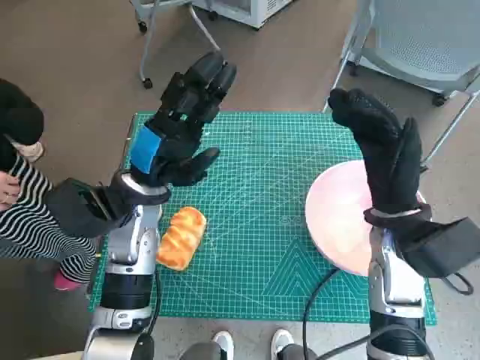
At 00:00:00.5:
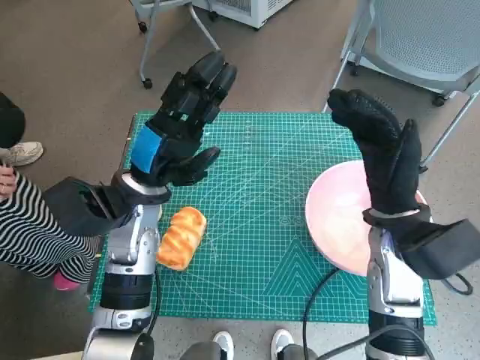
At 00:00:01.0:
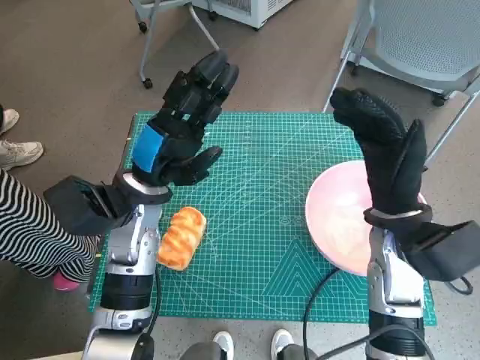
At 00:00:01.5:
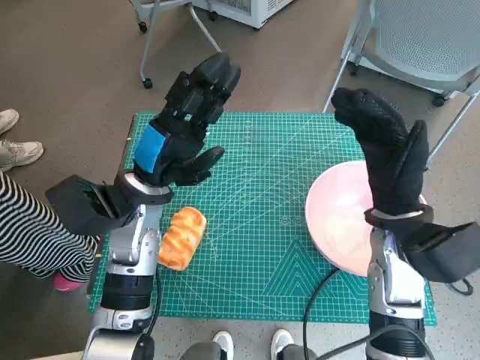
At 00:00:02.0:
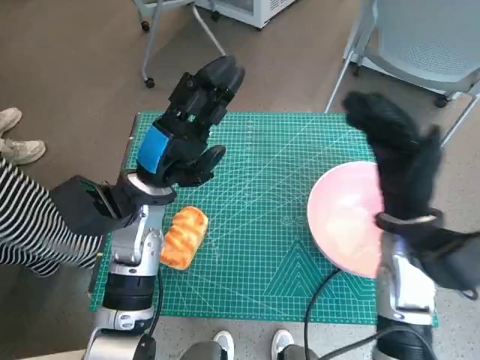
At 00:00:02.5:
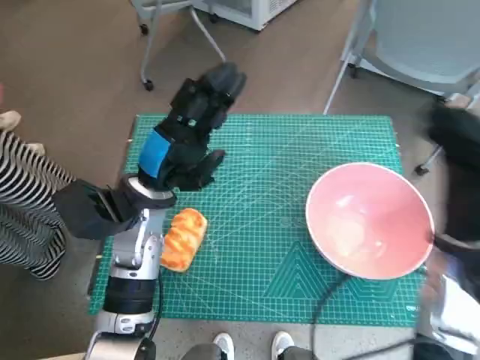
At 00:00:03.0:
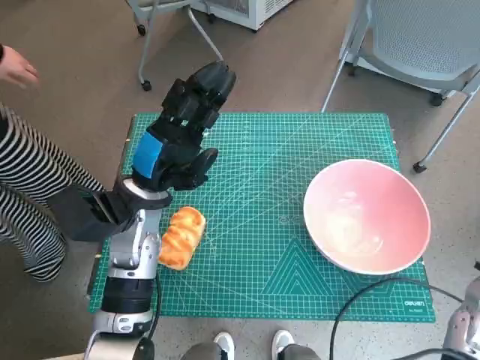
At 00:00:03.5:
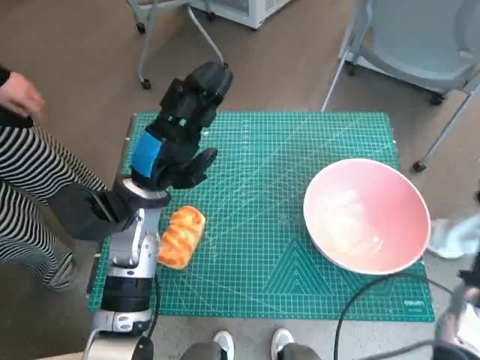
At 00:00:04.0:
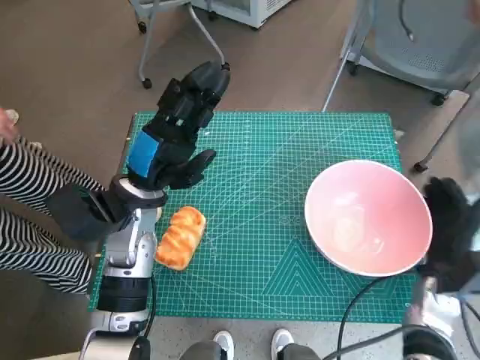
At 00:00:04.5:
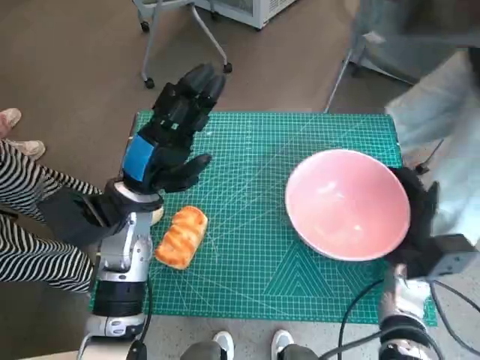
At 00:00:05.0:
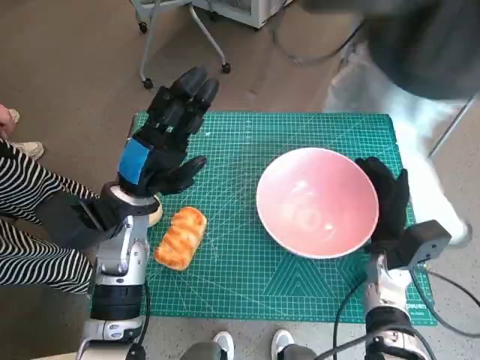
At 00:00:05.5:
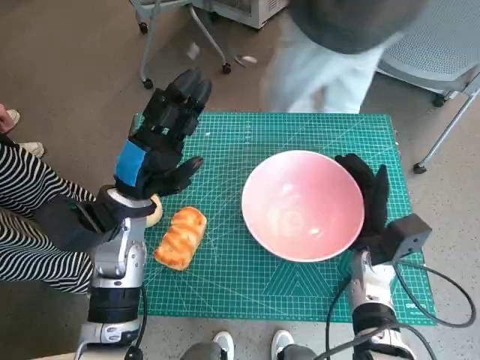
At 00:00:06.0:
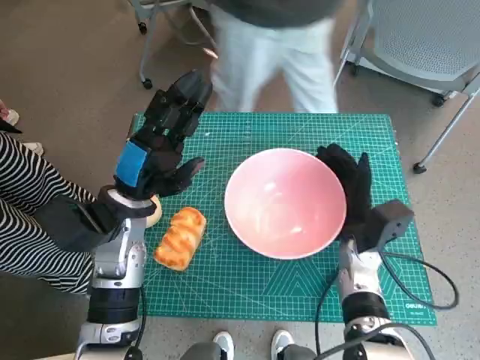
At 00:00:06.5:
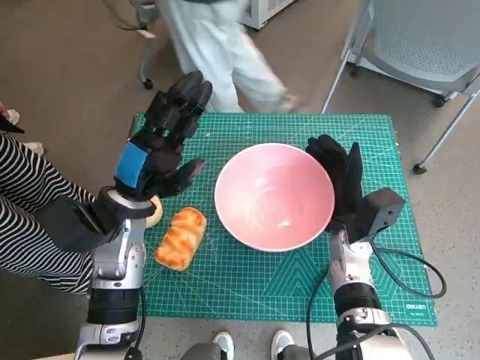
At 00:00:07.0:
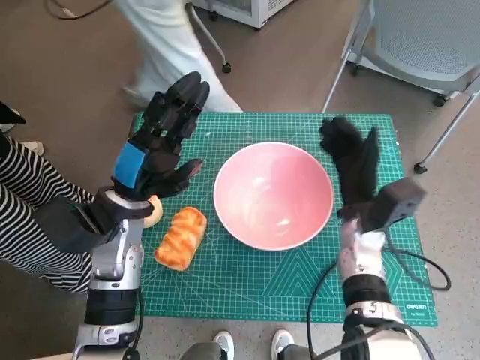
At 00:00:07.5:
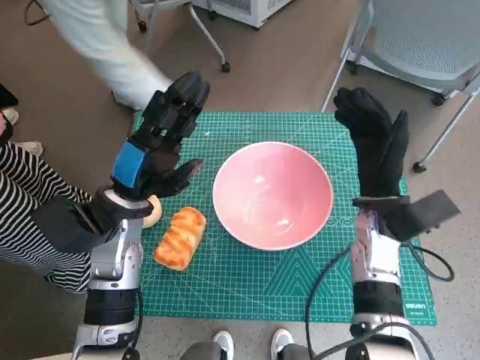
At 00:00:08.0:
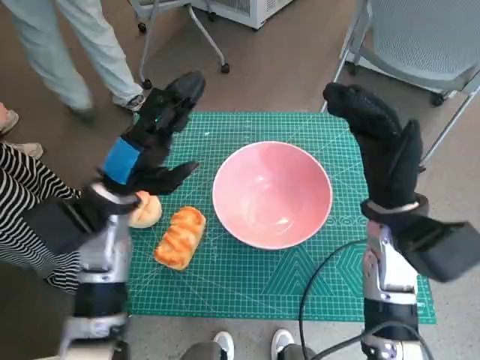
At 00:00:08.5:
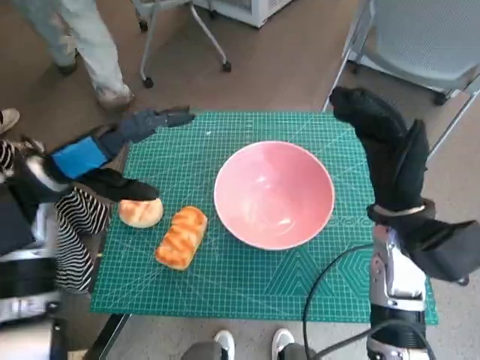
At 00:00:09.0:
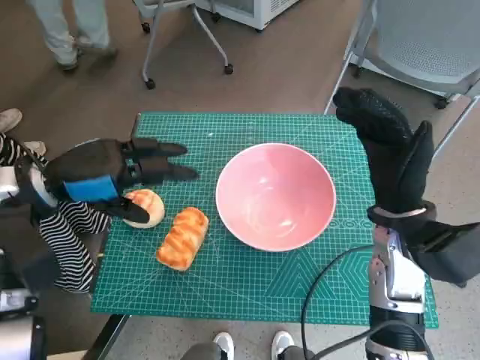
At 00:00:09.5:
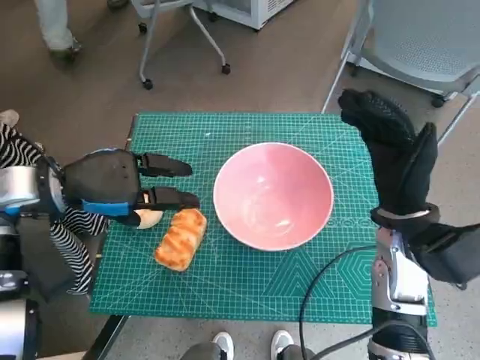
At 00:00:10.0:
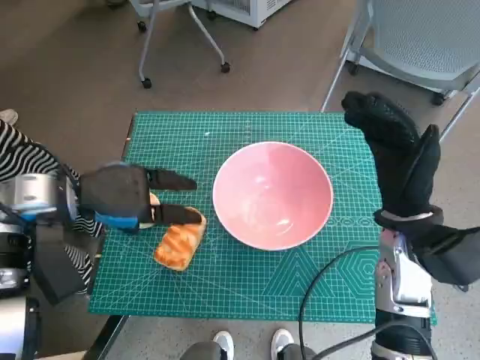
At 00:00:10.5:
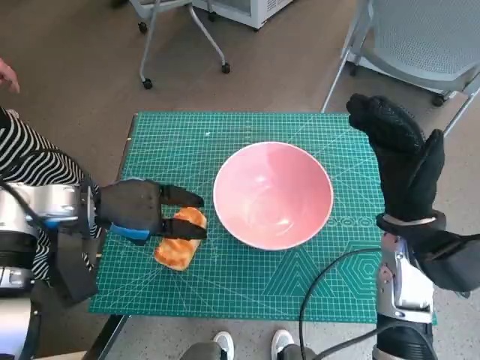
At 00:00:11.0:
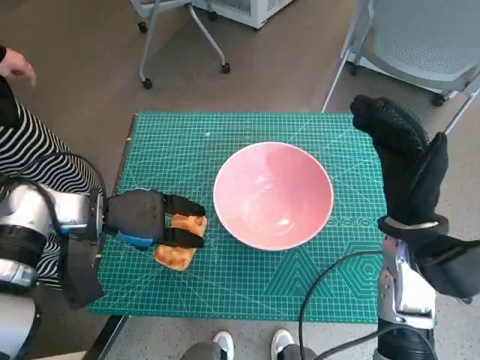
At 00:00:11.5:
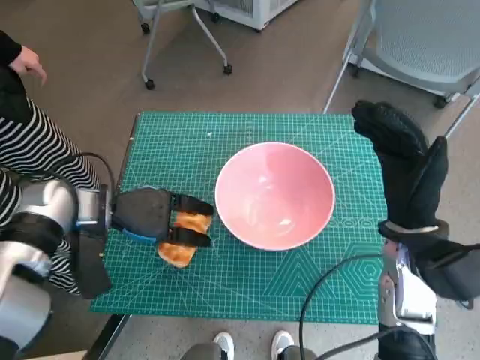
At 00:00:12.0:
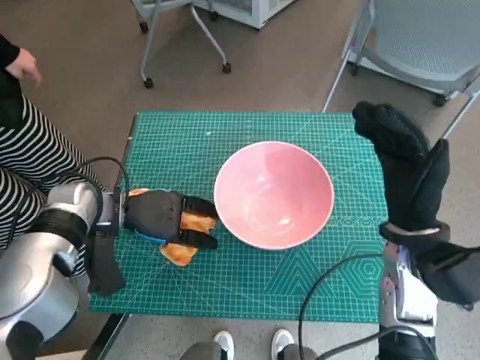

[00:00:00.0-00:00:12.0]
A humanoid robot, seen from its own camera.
Task of the whole recording: Push the bowl into the center of the table and put the bread into the bowl.
Step, 00:00:00.0 to 00:00:07.0: Move the pink bowl to the center of table with right hand.
00:00:02.0 to 00:00:04.0: The right hand goes about 15 cm downward and to the right.
00:00:04.0 to 00:00:06.0: The right hand goes some 10 cm to the left and forward.
00:00:06.0 to 00:00:08.0: The right hand shifts approximately 10 cm upward.
00:00:08.0 to 00:00:10.0: The left hand moves to the left, approximately 5 cm.
00:00:10.0 to 00:00:12.0: The left hand goes roughly 10 cm downward.

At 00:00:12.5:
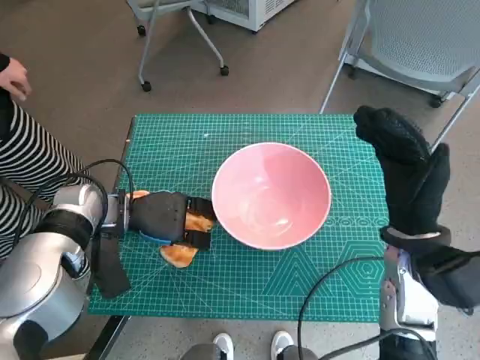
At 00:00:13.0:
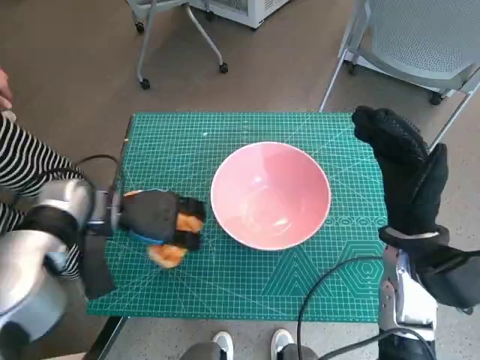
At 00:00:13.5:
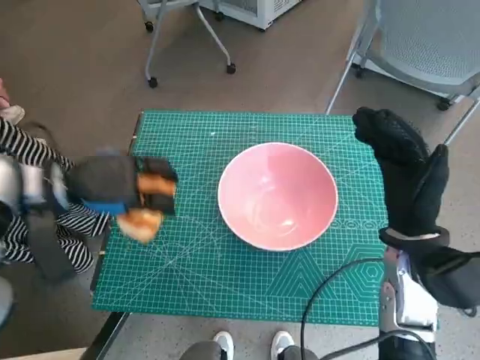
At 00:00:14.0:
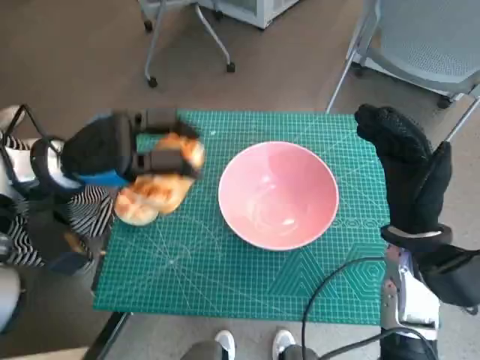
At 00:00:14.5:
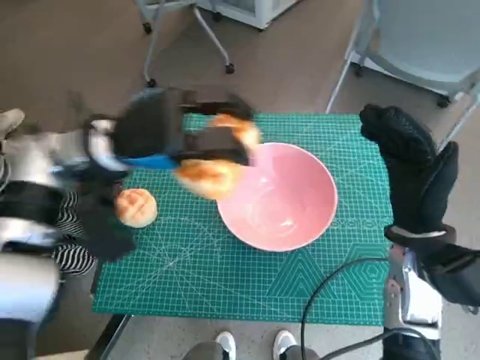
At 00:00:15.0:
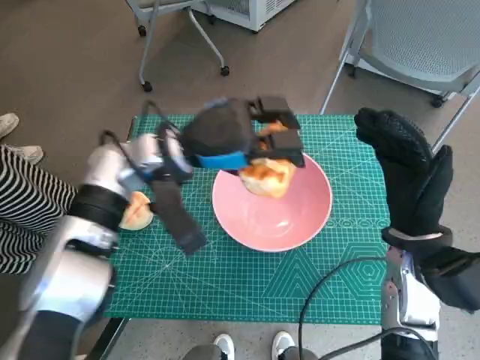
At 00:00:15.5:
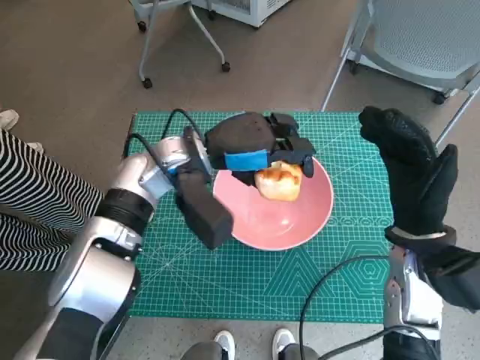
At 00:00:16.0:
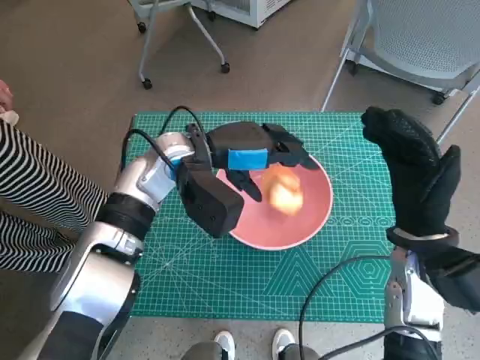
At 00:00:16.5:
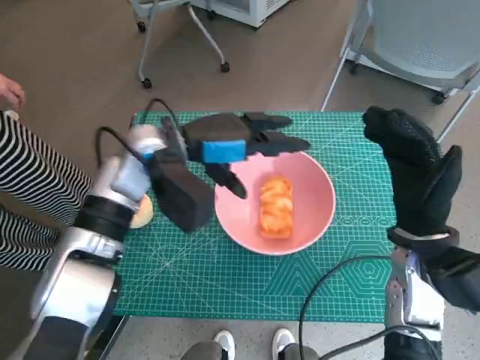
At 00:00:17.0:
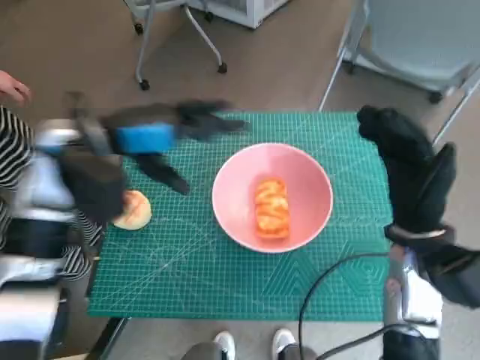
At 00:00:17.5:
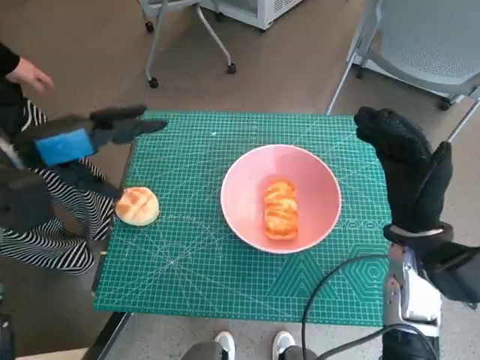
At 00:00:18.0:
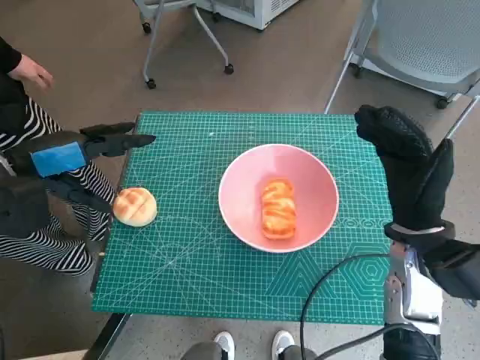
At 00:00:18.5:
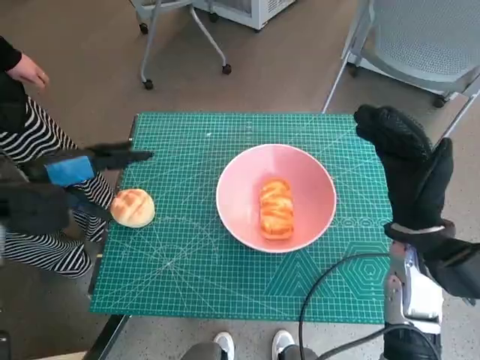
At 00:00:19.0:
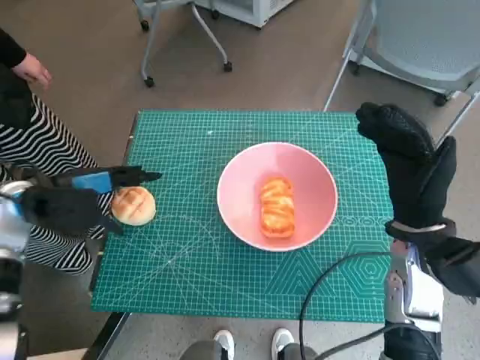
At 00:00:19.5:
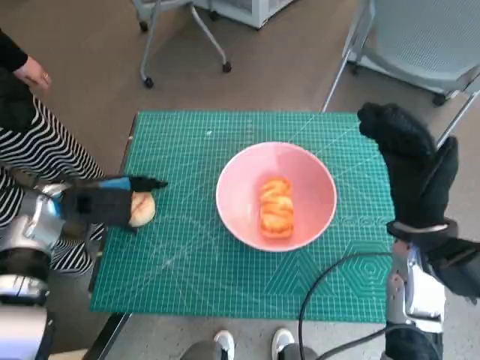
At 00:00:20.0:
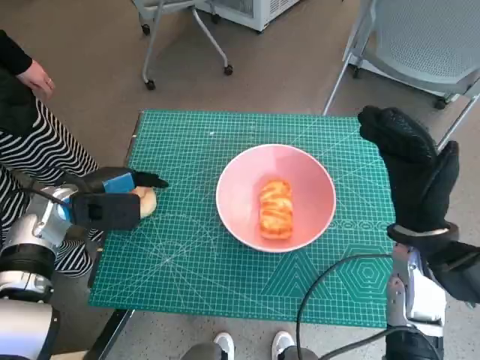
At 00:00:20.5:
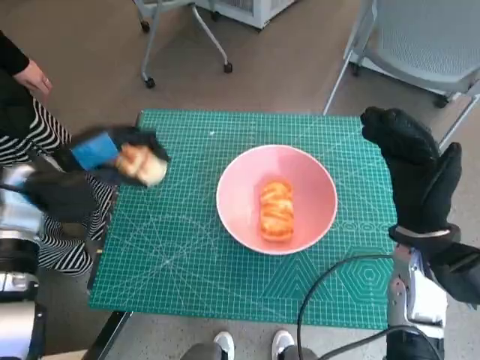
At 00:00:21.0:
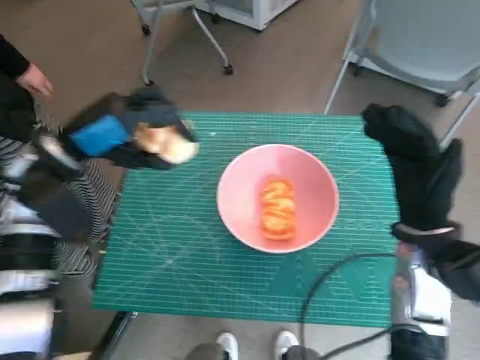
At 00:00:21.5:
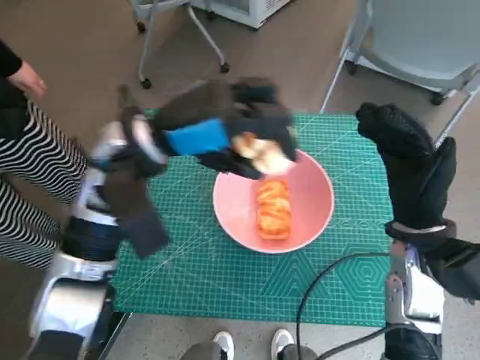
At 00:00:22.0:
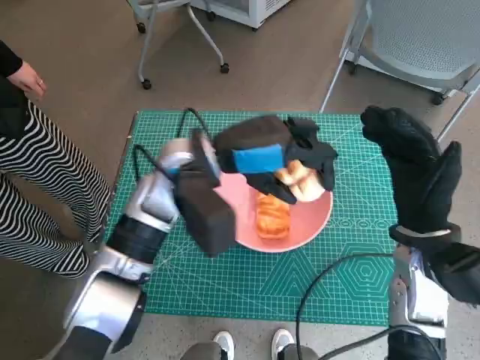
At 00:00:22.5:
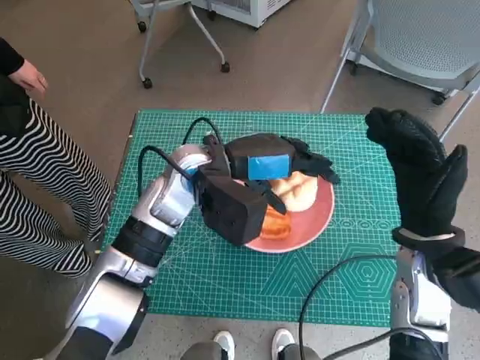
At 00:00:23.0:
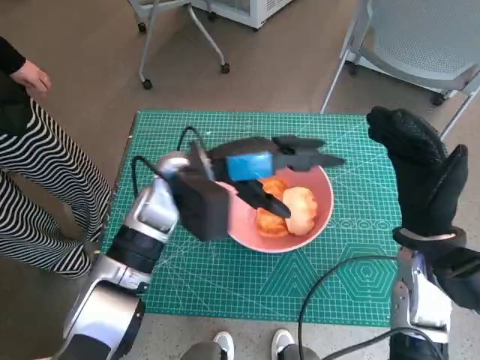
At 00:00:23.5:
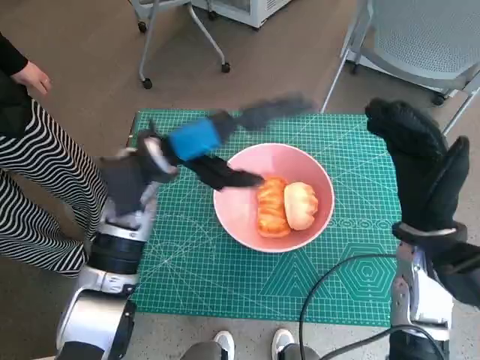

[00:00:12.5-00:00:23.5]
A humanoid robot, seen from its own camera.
Task of the whole recording: Push the bowl into the center of the table and put the bread into the bowl.
Step, 00:00:13.0 to 00:00:16.0: Place the long bread in pink bowl with left hand.
Step, 00:00:16.5 to 00:00:20.0: Grasp the round bread with left hand.
Step, 00:00:20.5 to 00:00:23.0: Place the round bread in pink bowl with left hand.
00:00:12.5 to 00:00:14.5: The left hand moves upward, about 15 cm.
00:00:14.5 to 00:00:16.0: The left hand travels to the right by roughly 10 cm.
00:00:16.0 to 00:00:18.0: The left hand is displaced to the left by approximately 20 cm.
00:00:18.0 to 00:00:20.0: The left hand moves downward, about 10 cm.
00:00:20.0 to 00:00:21.5: The left hand moves to the right and upward, approximately 20 cm.

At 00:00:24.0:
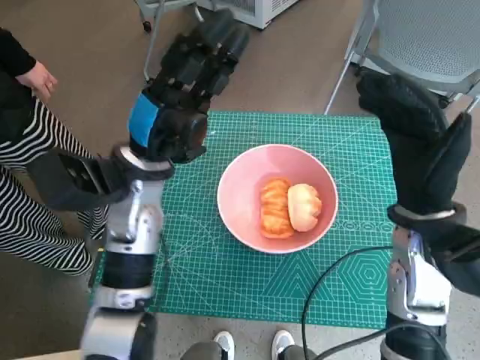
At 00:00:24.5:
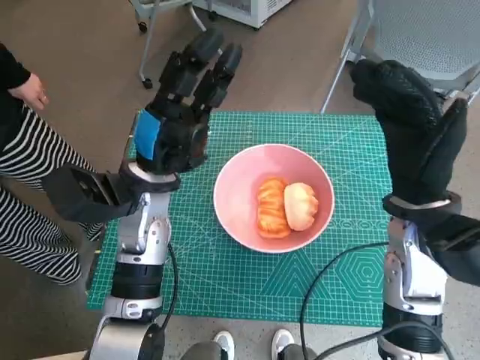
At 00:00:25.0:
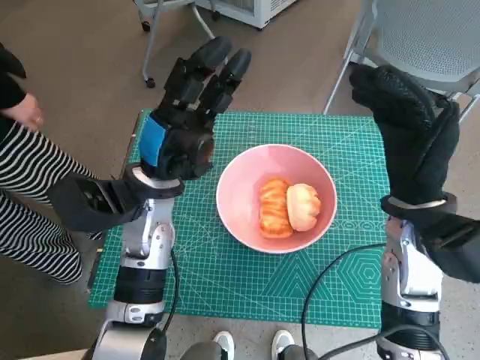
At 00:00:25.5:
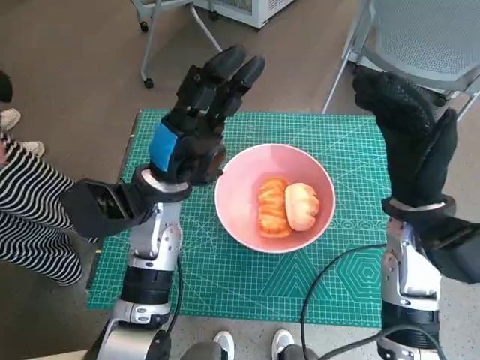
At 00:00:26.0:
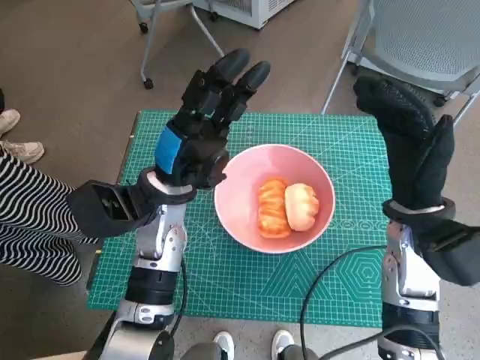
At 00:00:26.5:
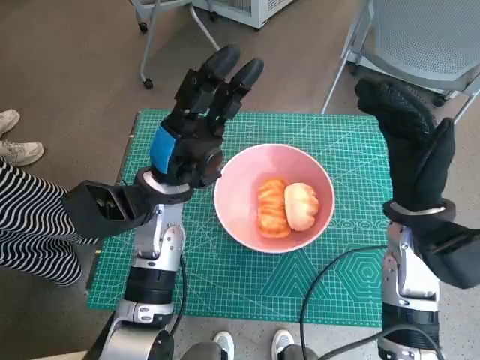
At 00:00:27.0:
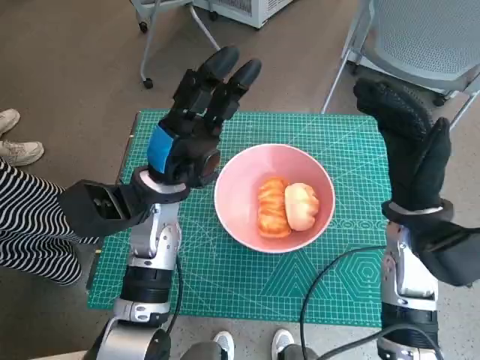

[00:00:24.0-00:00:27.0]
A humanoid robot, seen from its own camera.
Task of the whole recording: Push the bowl into the center of the table and put the bread into the bowl.
00:00:25.5 to 00:00:27.0: The two hands keep their place.
